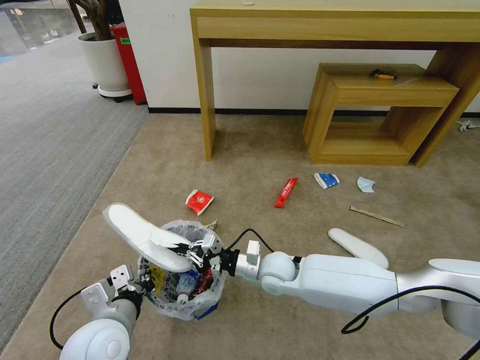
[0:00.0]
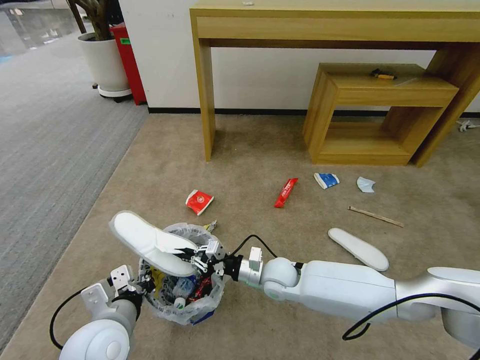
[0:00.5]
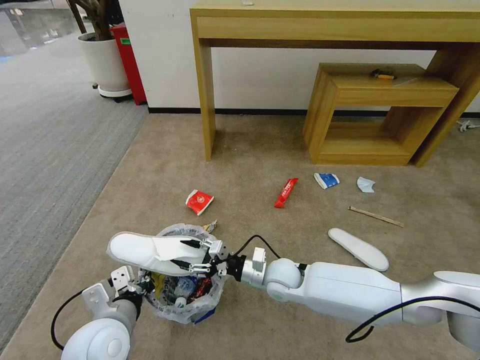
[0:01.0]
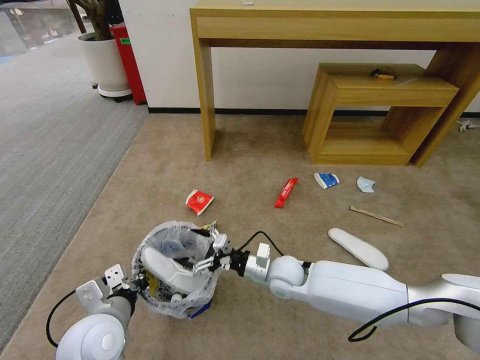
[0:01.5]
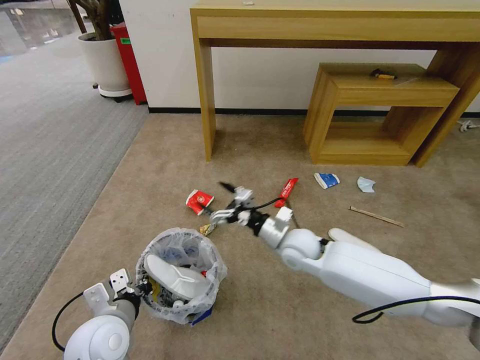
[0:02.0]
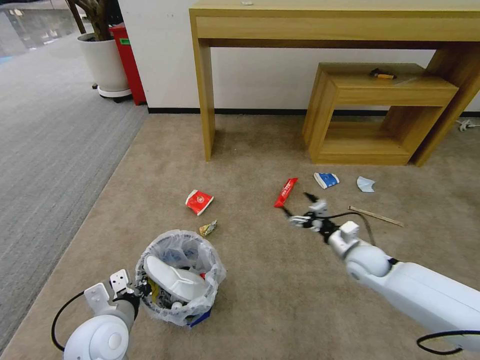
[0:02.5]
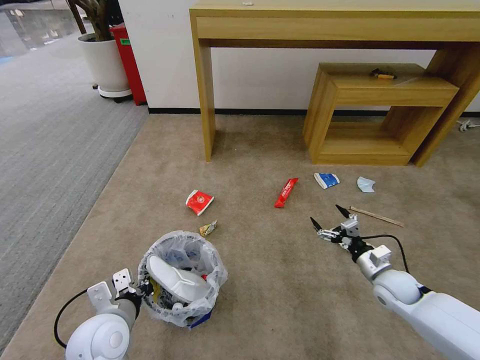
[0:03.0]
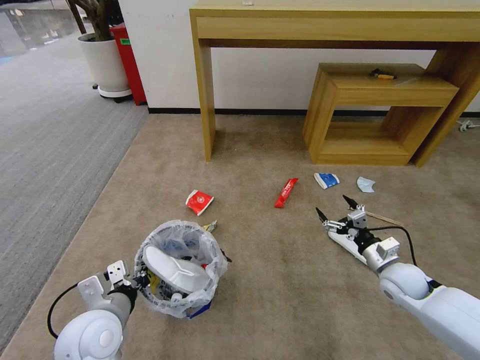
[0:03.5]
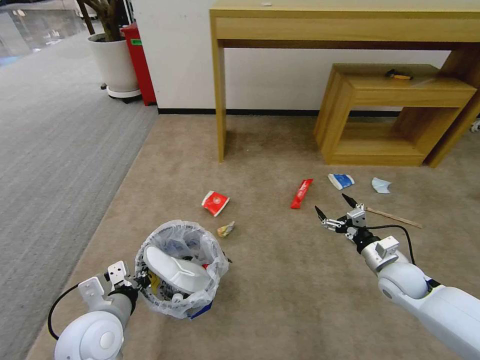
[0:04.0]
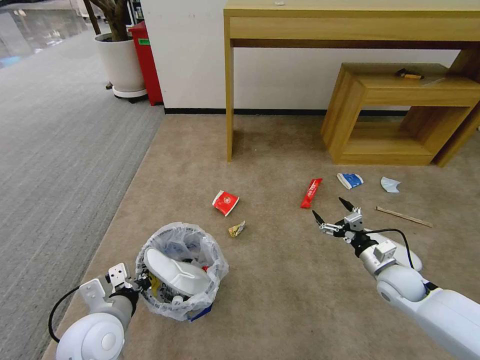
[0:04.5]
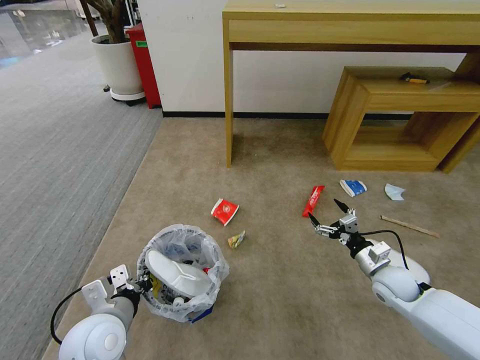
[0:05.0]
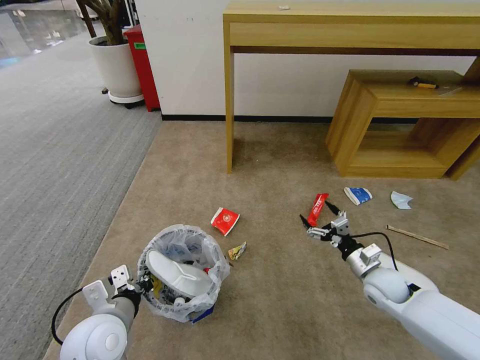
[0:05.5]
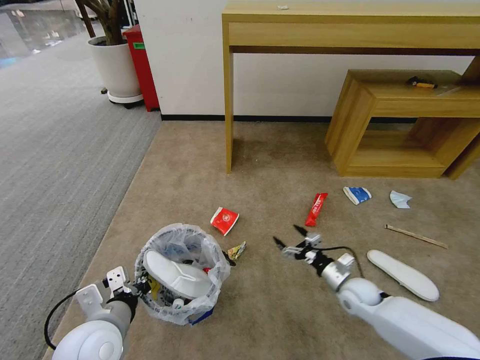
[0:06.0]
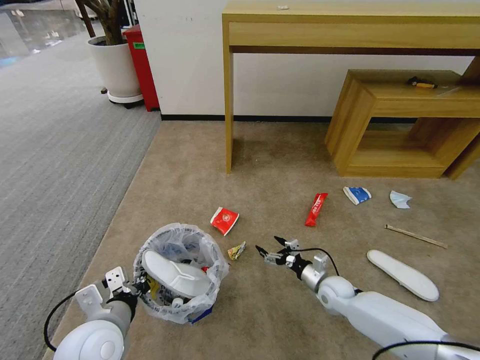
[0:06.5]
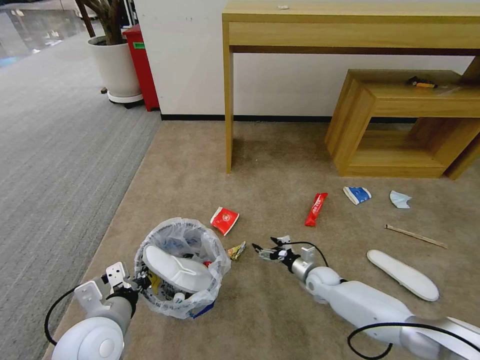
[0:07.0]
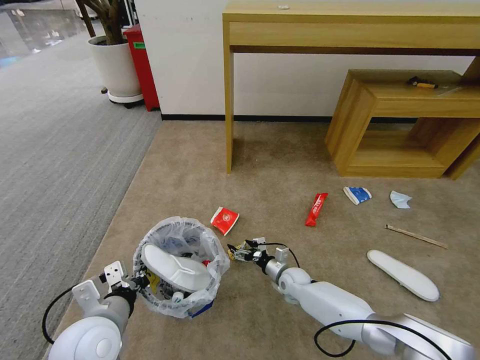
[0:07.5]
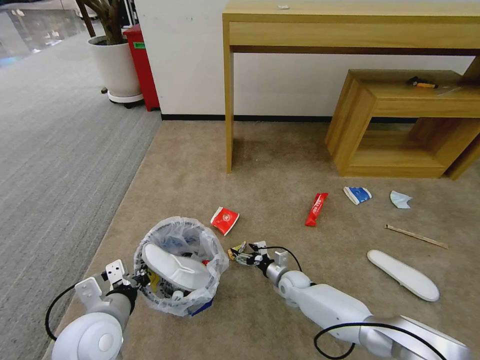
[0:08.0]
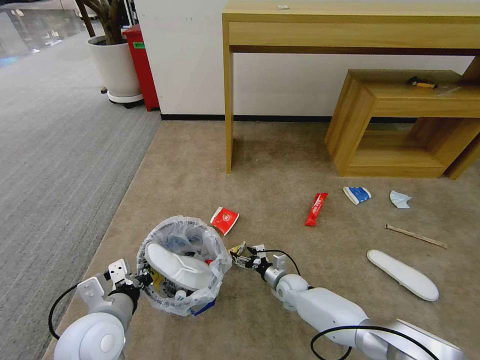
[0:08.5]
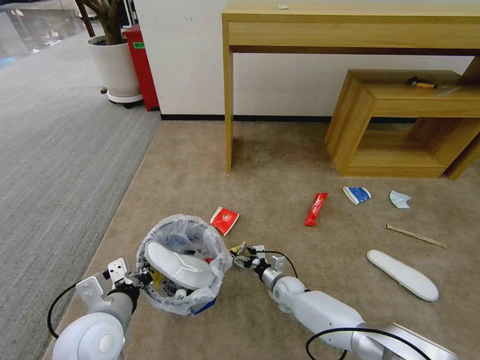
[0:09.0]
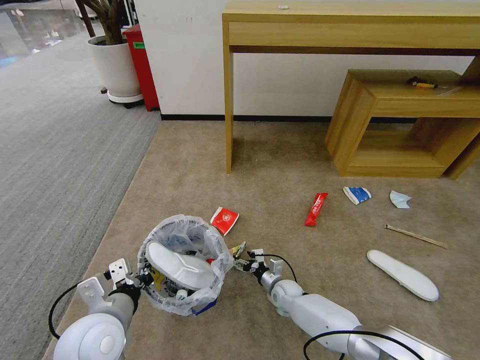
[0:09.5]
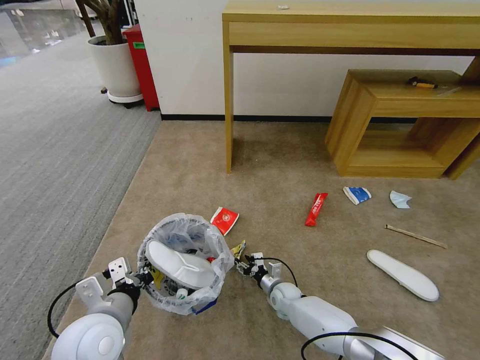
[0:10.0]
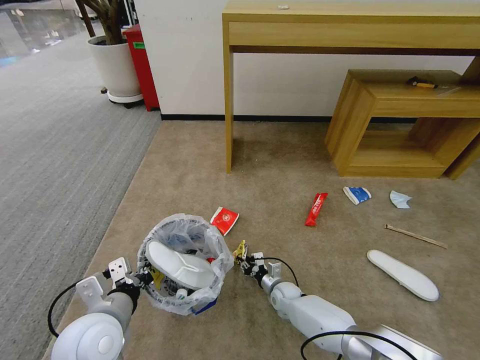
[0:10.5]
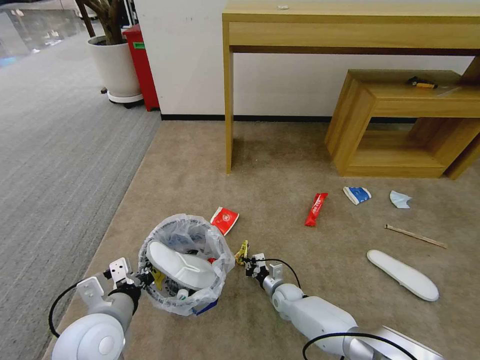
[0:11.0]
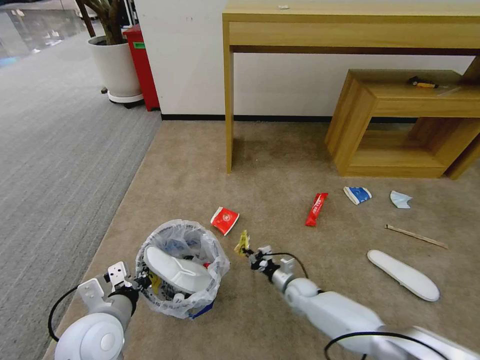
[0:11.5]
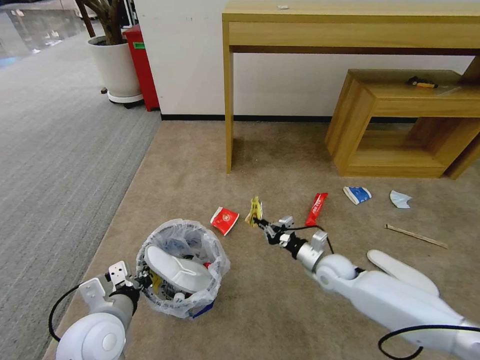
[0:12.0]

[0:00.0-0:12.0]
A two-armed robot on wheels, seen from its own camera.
Task of the whole recording: Pick up the trash bin and place the garbage on the floor into it.
0:00.0 to 0:02.0: The right gripper travels to the right by about 5 cm, and opens.
0:02.0 to 0:04.0: The right gripper goes about 25 cm to the right.
0:04.0 to 0:06.0: The right gripper heads downward and to the left, covering about 10 cm.
0:06.0 to 0:08.0: The right gripper travels to the left, downward and forward by about 20 cm.
0:08.0 to 0:10.0: The right gripper closes.
0:10.0 to 0:12.0: The right gripper is displaced upward and to the right by roughly 20 cm, and closes its fingers.

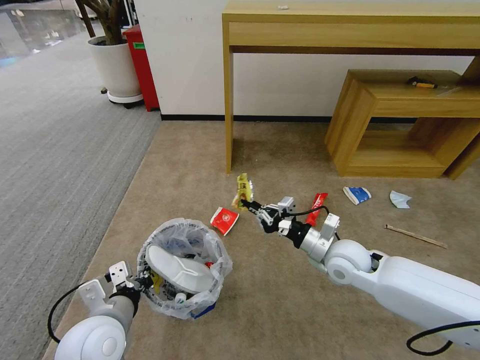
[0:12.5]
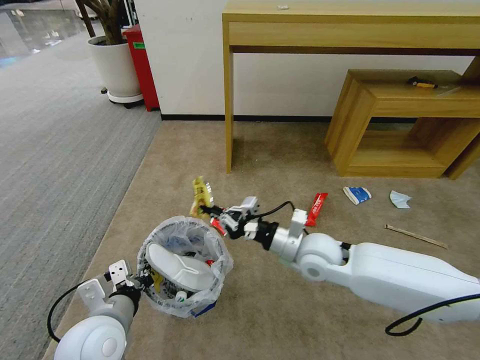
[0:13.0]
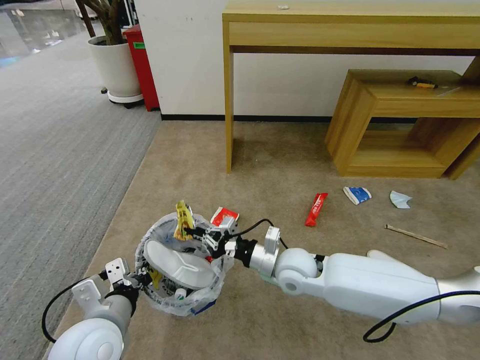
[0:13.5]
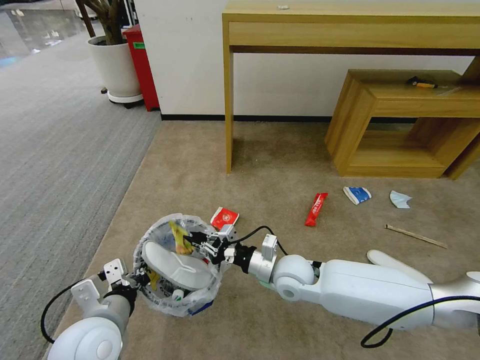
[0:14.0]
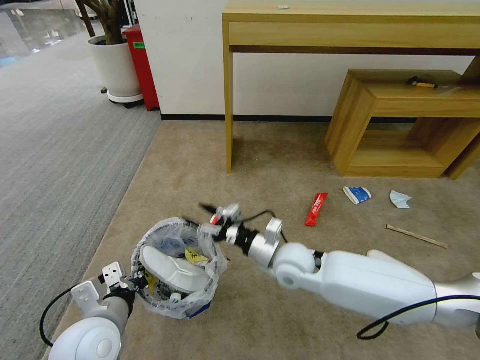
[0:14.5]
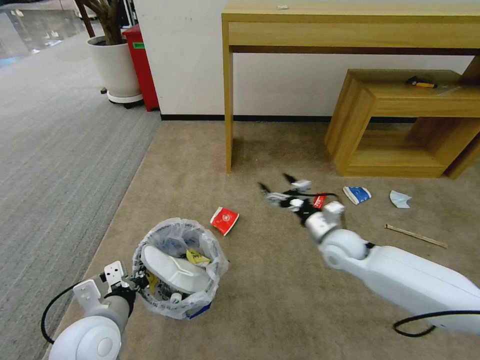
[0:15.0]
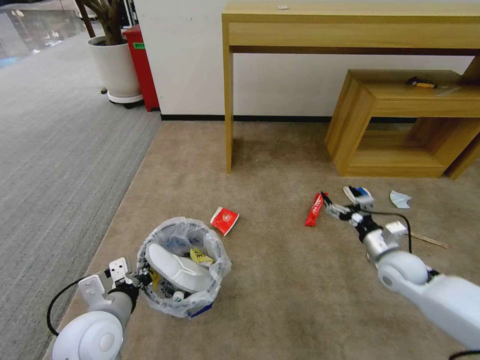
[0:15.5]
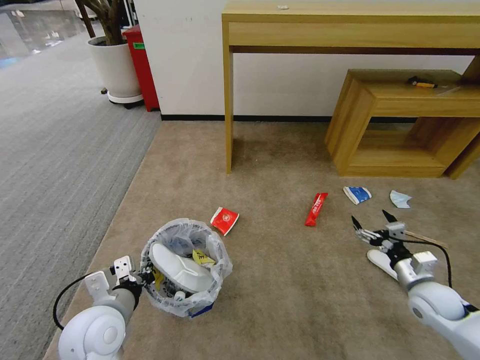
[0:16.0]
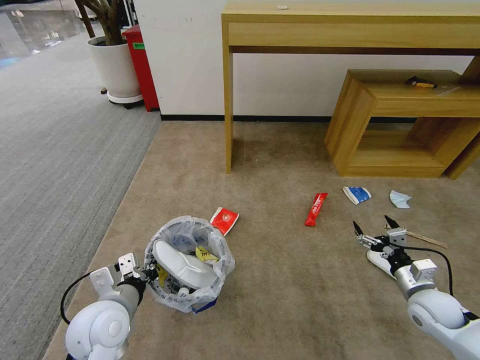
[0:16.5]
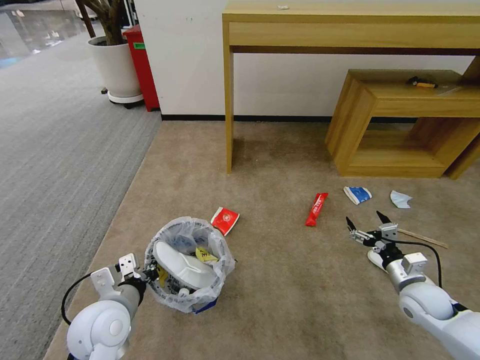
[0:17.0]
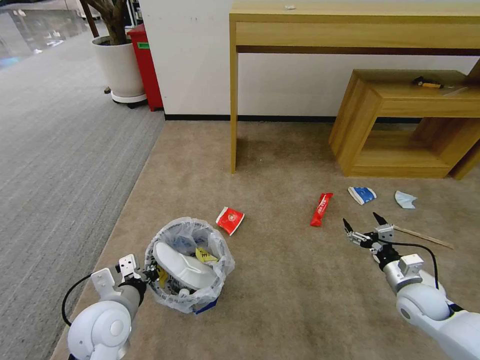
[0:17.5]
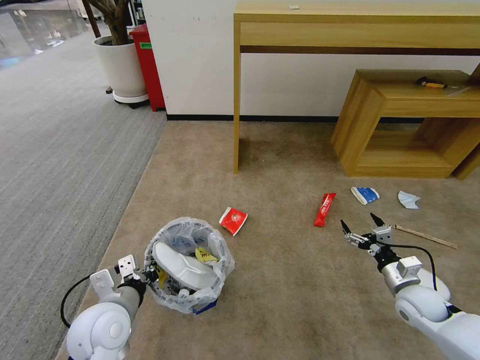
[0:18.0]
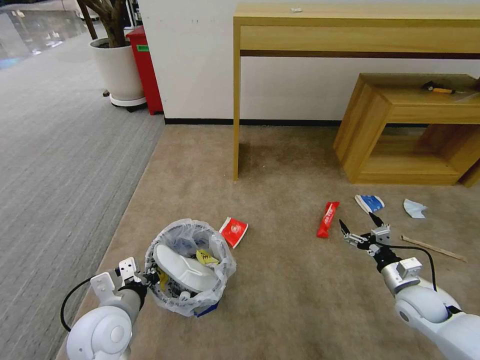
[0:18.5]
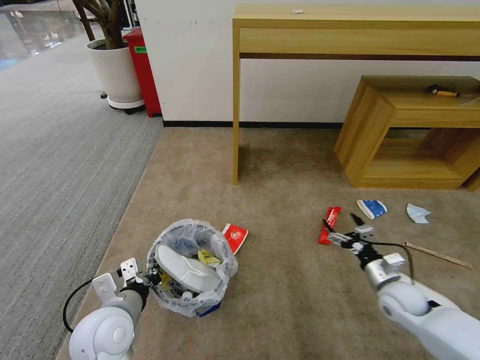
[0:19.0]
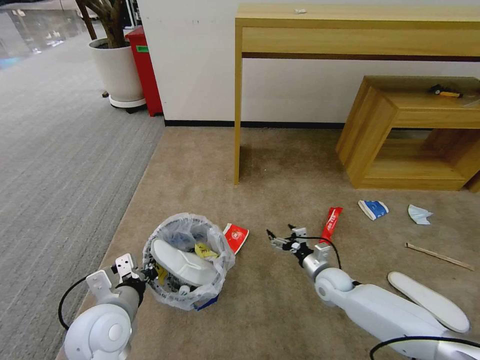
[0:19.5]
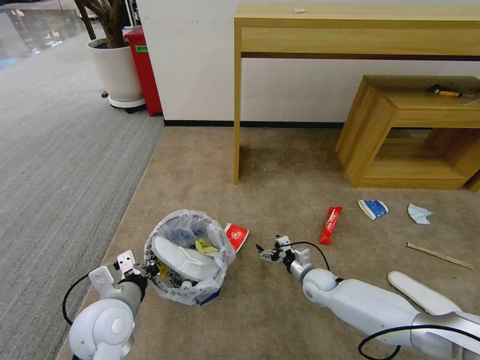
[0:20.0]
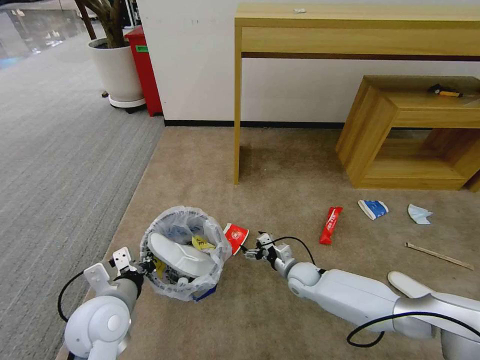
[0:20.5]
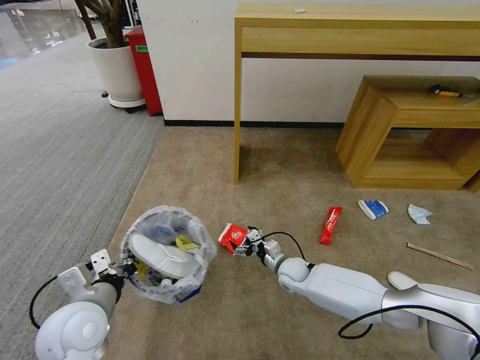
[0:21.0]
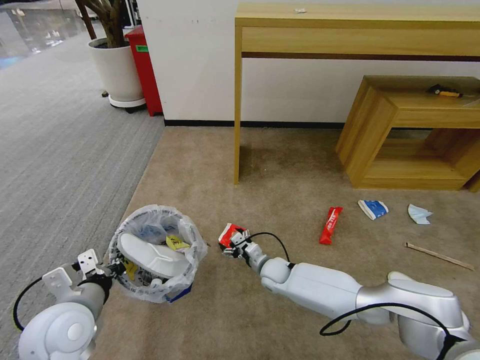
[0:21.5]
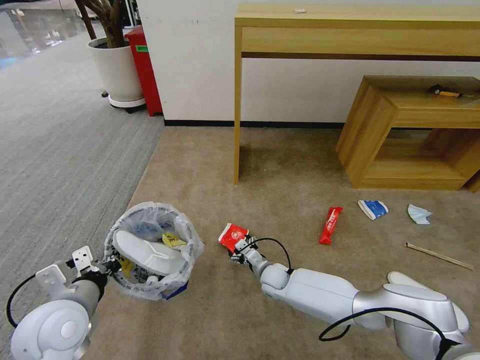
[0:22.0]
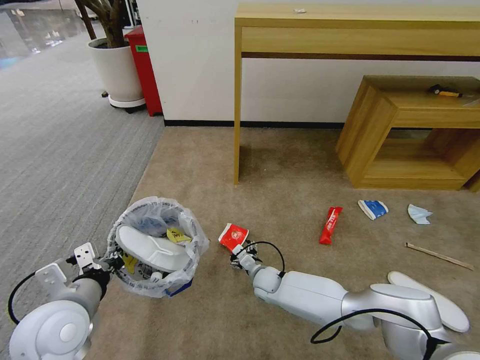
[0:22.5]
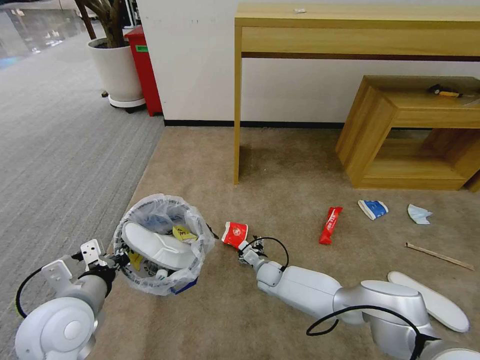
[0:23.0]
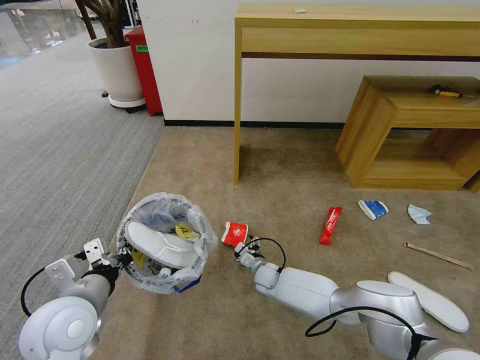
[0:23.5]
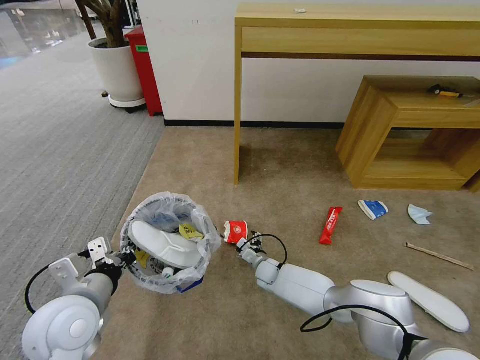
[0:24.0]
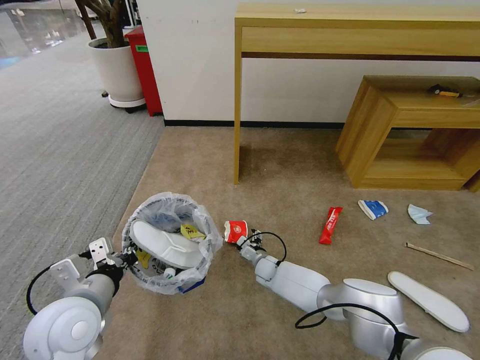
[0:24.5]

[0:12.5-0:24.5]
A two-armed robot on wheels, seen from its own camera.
Task of the whole recording: Pick up the trash bin and place the garbage on the floor into it.
0:12.5 to 0:14.5: The right gripper moves to the left, roughly 15 cm, and opens.
0:14.5 to 0:16.5: The right gripper shifts approximately 35 cm to the right.
0:16.5 to 0:18.5: There are only small adjustments of the grippers.
0:18.5 to 0:20.5: The right gripper heads to the left and forward, covering about 25 cm.
0:20.5 to 0:22.5: The right gripper goes some 10 cm to the left. Meanwhile the left gripper shifts by some 5 cm.
0:22.5 to 0:24.5: The right gripper moves forward, approximately 5 cm.

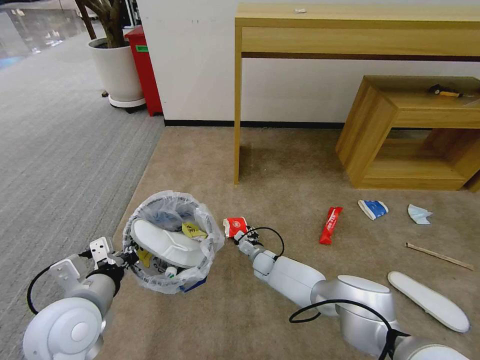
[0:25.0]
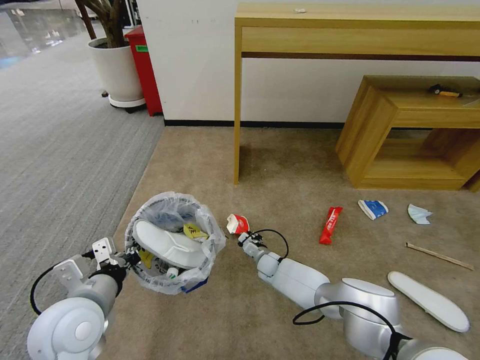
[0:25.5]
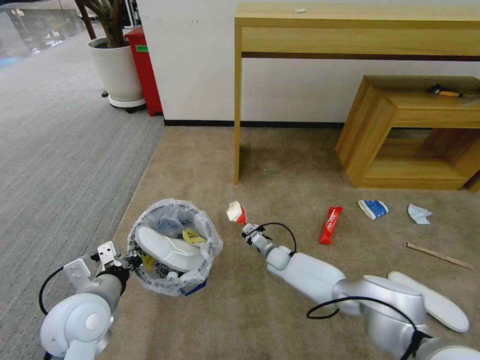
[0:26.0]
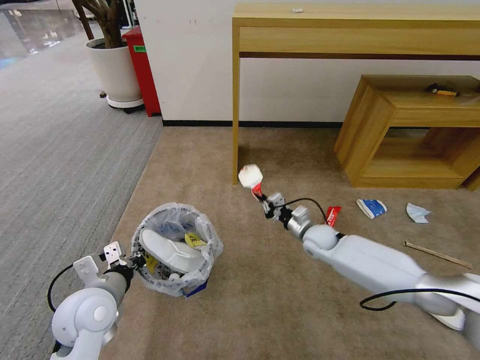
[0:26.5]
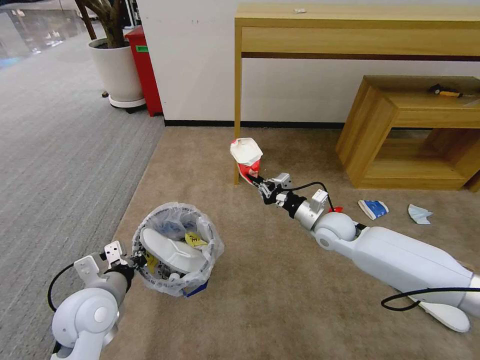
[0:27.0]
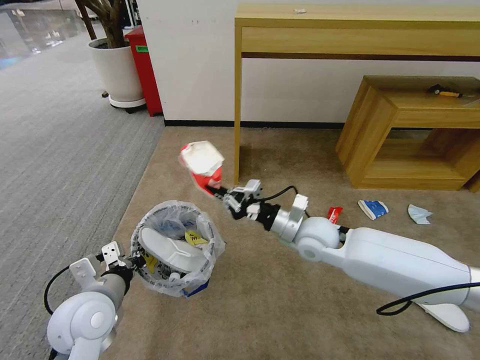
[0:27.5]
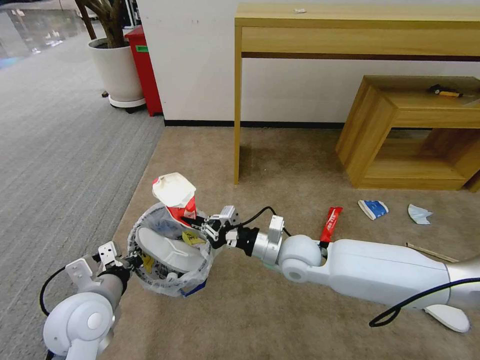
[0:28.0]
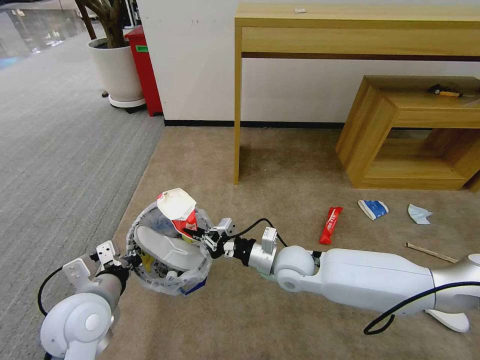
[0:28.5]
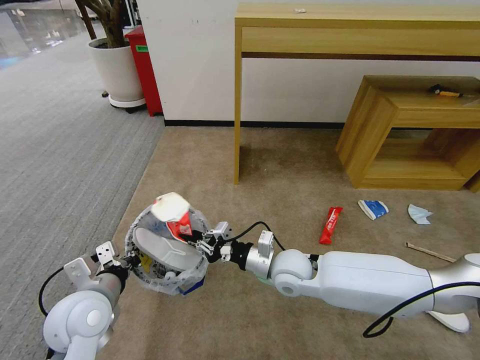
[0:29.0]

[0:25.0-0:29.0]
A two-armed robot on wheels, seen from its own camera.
Task of the whole recording: Pick up the trash bin and place the garbage on the floor into it.
0:25.0 to 0:27.0: The left gripper moves approximately 5 cm, while the right gripper goes approximately 30 cm upward and to the right, and closes up.
0:27.0 to 0:29.0: The right gripper shifts roughly 15 cm to the left and backward.
